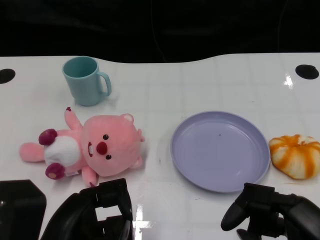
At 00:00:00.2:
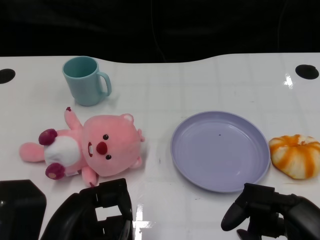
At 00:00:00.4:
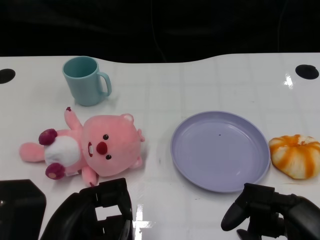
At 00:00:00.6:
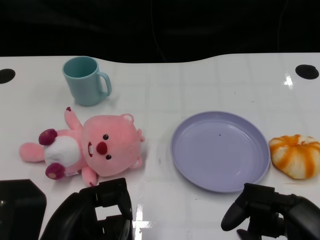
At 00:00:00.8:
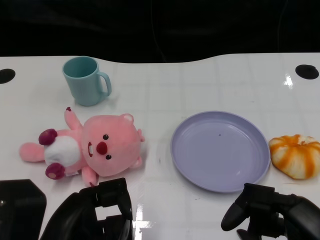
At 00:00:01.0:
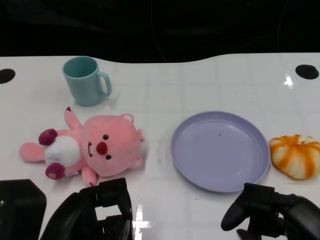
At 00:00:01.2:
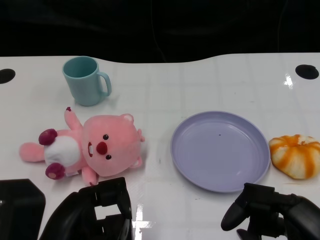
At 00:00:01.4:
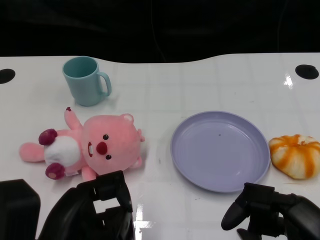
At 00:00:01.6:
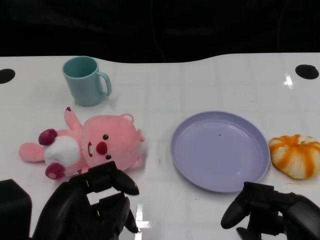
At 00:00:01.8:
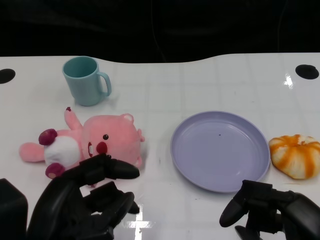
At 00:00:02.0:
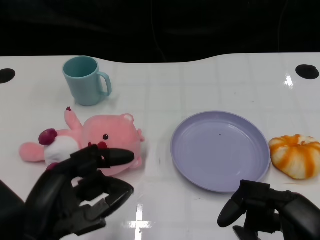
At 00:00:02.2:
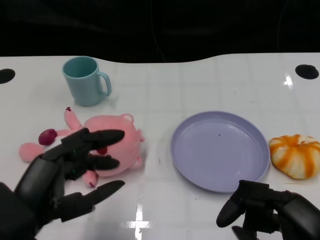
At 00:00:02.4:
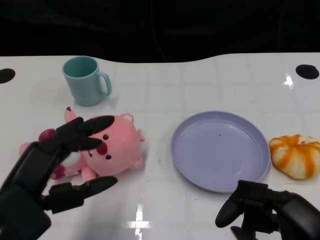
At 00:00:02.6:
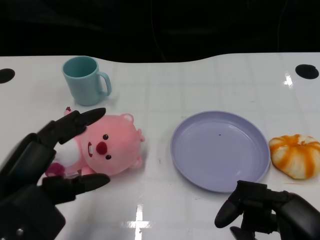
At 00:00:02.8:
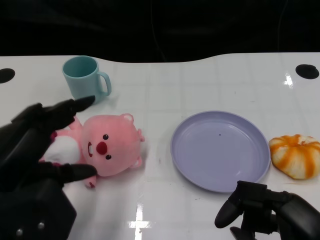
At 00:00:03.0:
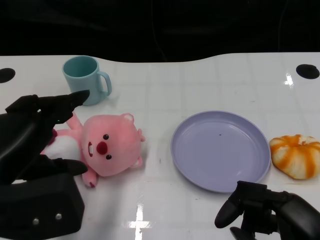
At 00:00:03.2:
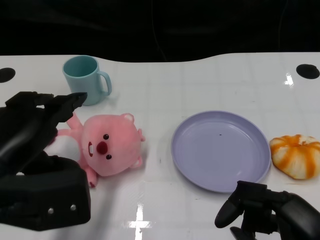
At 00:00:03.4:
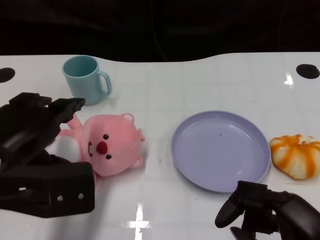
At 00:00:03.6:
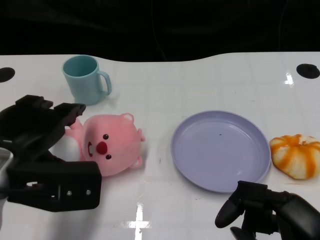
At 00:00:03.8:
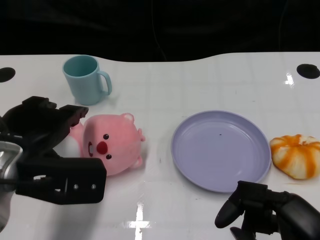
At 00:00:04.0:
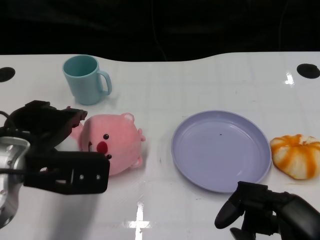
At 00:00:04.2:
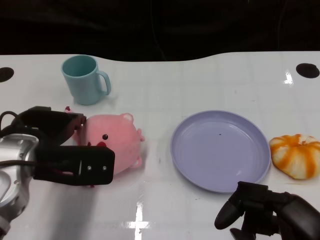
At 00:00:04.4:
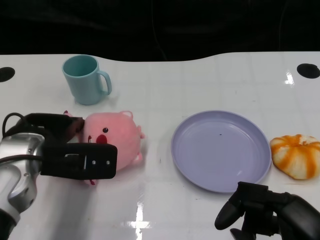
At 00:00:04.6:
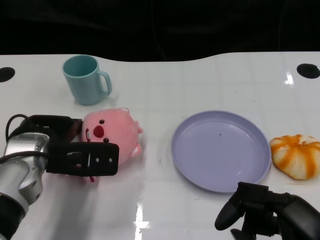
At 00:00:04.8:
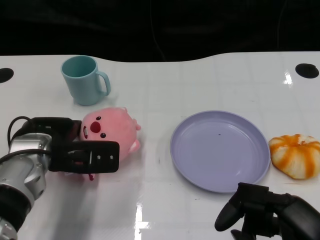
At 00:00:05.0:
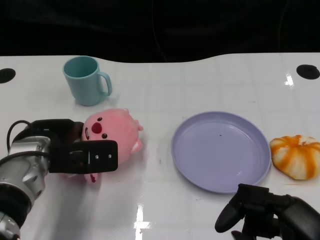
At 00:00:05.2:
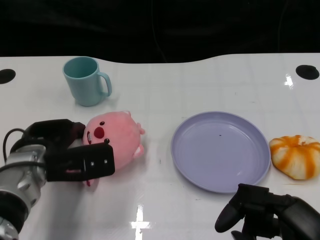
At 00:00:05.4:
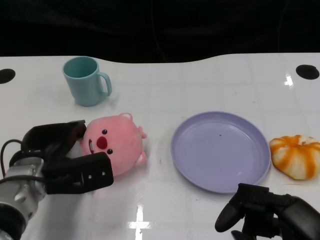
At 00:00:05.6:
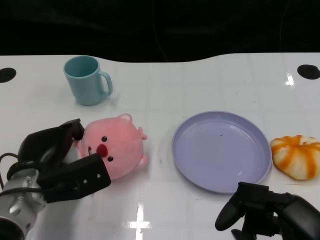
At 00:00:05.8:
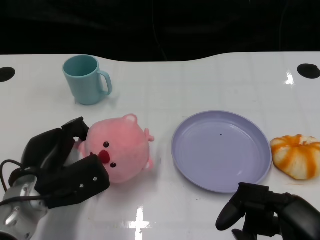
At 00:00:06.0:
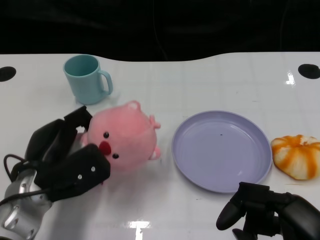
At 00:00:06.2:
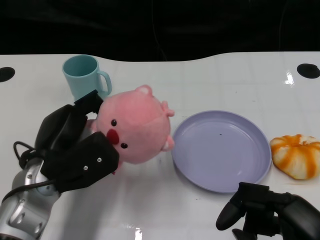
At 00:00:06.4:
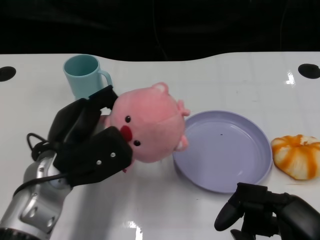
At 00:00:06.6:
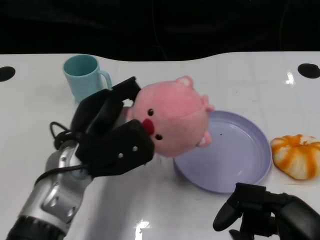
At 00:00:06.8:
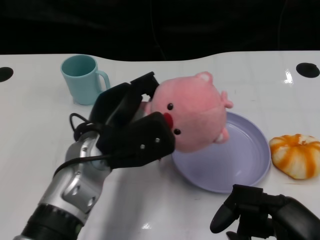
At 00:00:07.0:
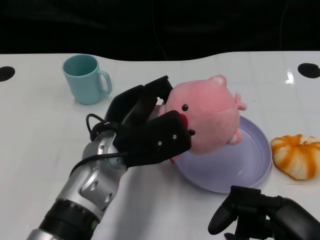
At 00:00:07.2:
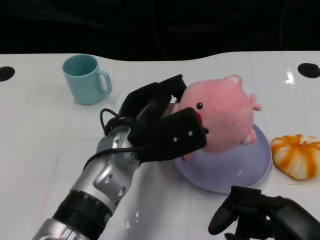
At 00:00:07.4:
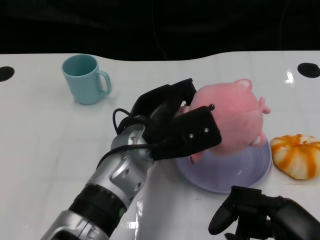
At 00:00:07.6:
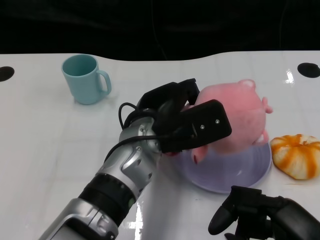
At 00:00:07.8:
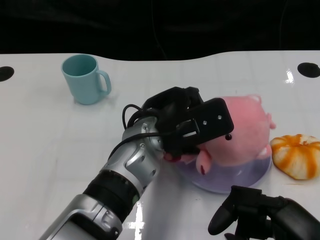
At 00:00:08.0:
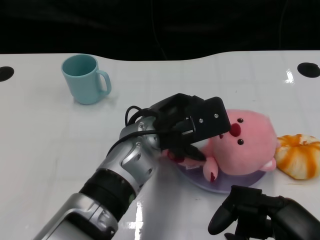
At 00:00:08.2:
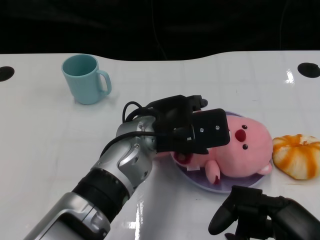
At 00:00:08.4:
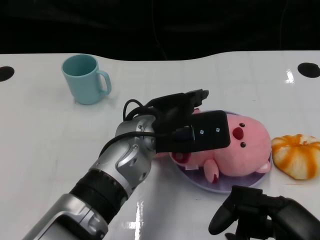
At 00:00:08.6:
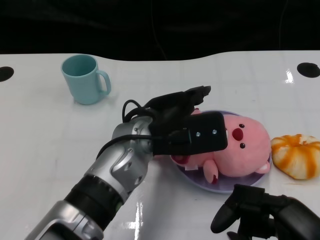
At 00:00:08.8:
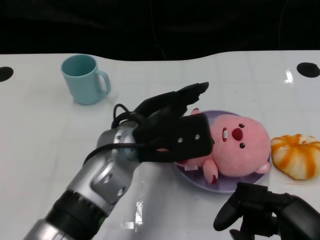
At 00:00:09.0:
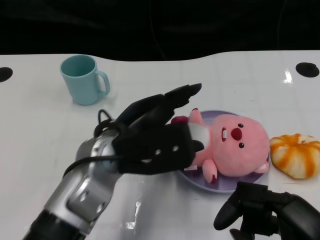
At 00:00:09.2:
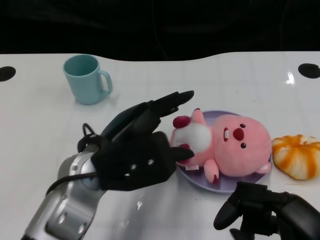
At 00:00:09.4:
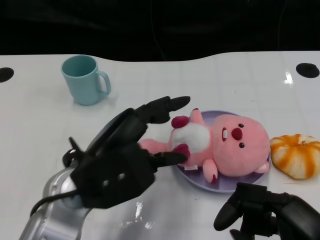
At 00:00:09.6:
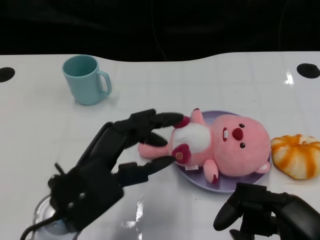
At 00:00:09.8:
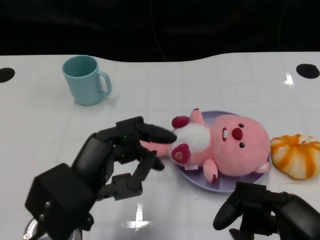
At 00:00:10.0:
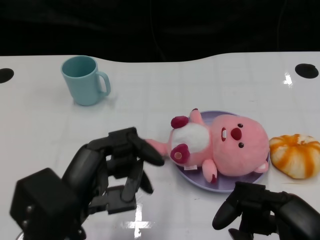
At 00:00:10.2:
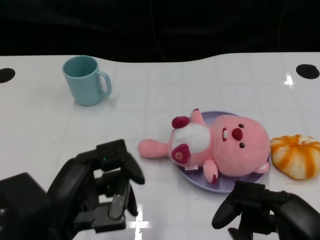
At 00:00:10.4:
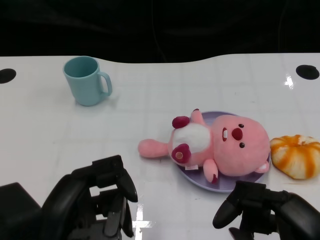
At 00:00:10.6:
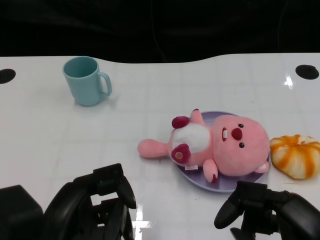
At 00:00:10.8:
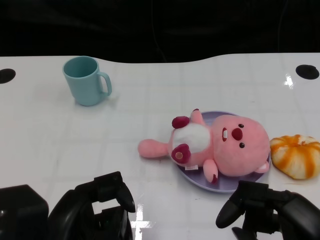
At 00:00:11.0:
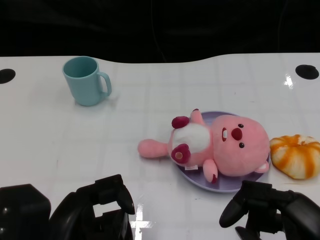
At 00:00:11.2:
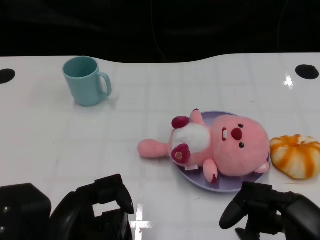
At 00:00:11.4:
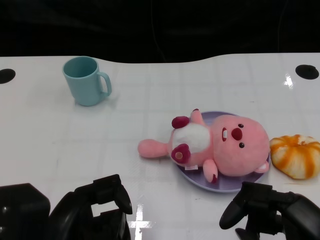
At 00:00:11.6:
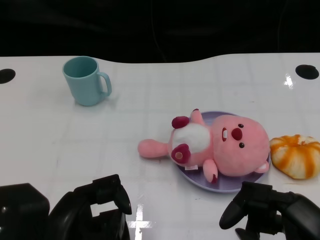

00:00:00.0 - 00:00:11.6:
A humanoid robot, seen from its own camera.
Task of the whole recording: Pick up the doll on one side of the plate and place it into the plate.
Step, 00:00:01.2 - 00:00:05.8: Grasp the pink doll with the left gripper.
Step, 00:00:06.0 - 00:00:08.6: Place the pink doll into the plate with the left gripper.
00:00:01.4 - 00:00:02.8: The left hand heads upward, covering roughly 5 cm.
00:00:02.8 - 00:00:04.4: The left hand heads forward, covering about 10 cm.
00:00:04.4 - 00:00:05.8: The left hand travels downward by approximately 10 cm.
00:00:05.8 - 00:00:07.2: The left hand moves to the right and upward, some 15 cm.
00:00:08.8 - 00:00:10.2: The left hand heads backward and to the left, covering some 15 cm.
00:00:10.2 - 00:00:11.6: The hands make only small movements.

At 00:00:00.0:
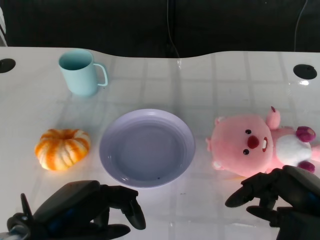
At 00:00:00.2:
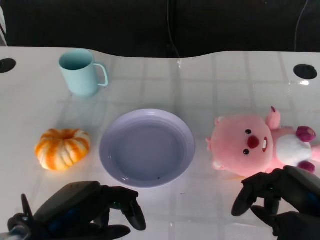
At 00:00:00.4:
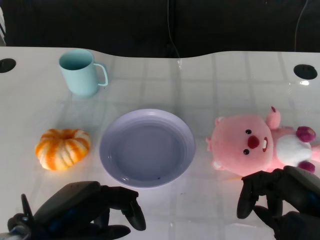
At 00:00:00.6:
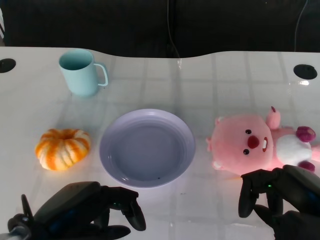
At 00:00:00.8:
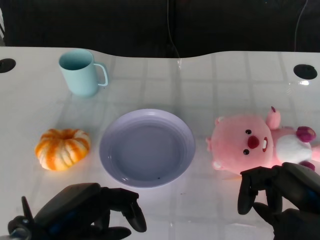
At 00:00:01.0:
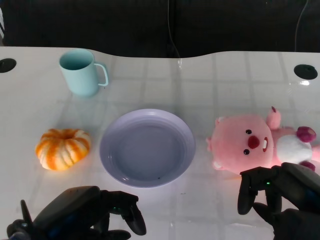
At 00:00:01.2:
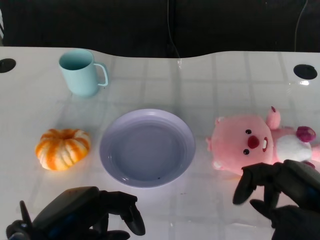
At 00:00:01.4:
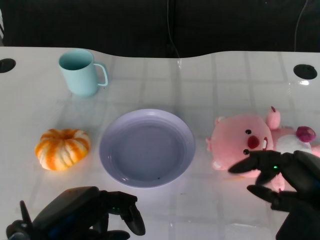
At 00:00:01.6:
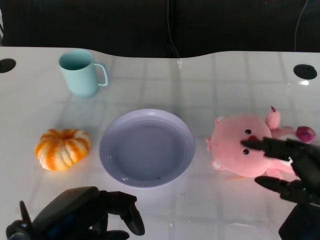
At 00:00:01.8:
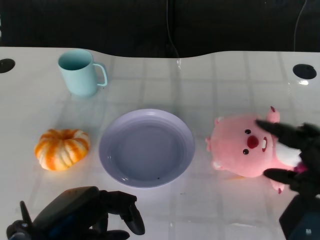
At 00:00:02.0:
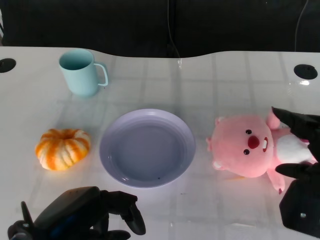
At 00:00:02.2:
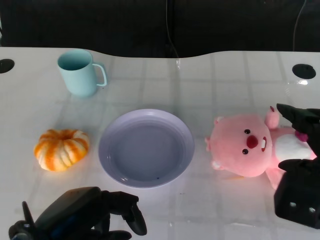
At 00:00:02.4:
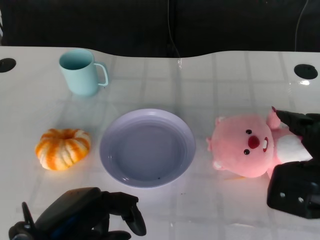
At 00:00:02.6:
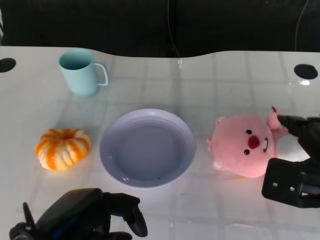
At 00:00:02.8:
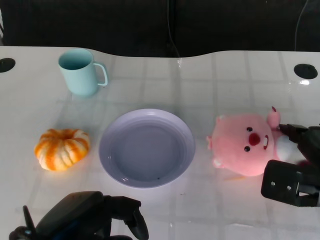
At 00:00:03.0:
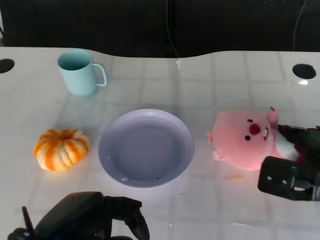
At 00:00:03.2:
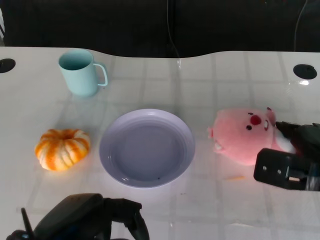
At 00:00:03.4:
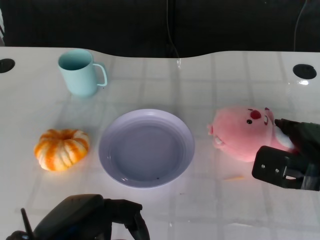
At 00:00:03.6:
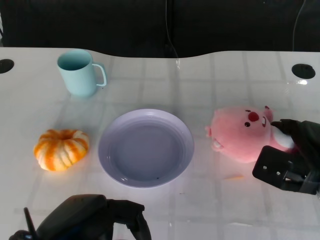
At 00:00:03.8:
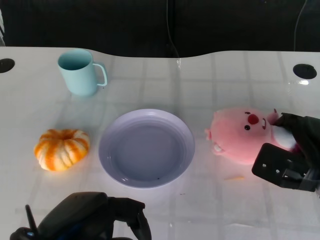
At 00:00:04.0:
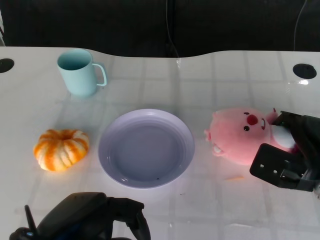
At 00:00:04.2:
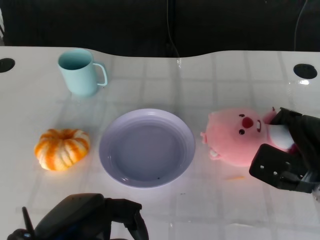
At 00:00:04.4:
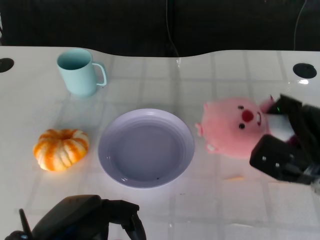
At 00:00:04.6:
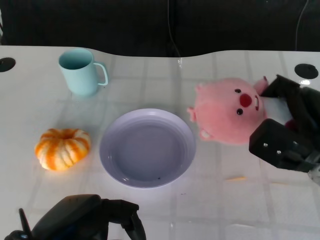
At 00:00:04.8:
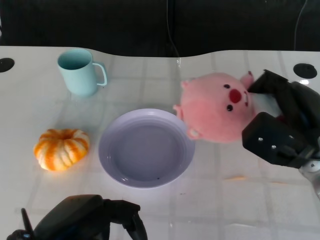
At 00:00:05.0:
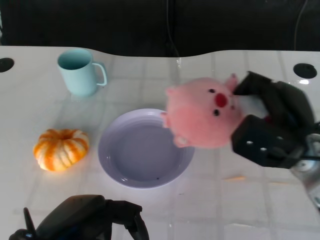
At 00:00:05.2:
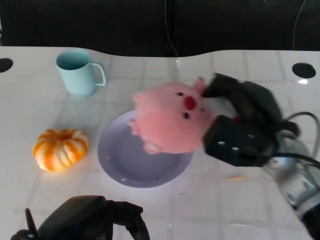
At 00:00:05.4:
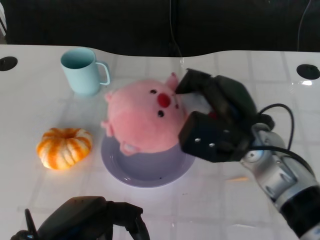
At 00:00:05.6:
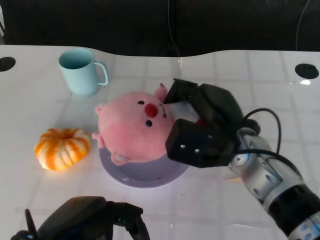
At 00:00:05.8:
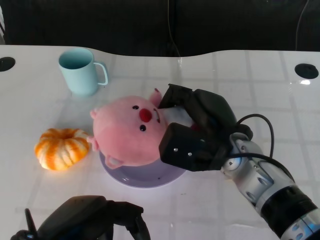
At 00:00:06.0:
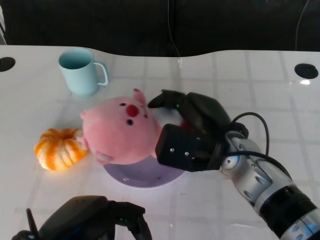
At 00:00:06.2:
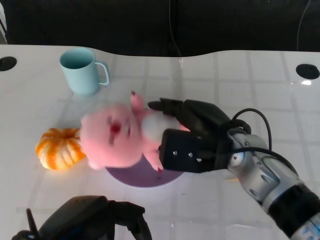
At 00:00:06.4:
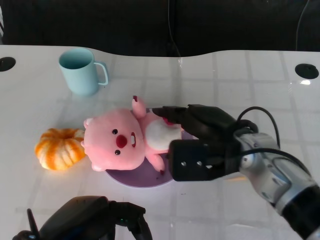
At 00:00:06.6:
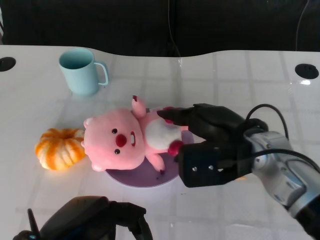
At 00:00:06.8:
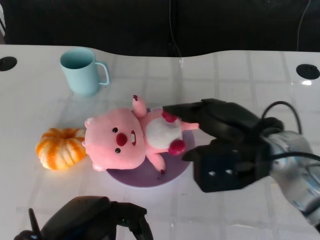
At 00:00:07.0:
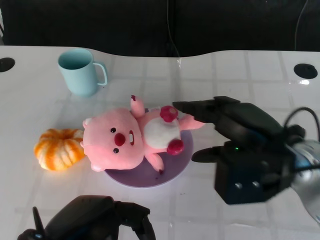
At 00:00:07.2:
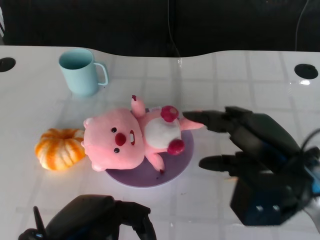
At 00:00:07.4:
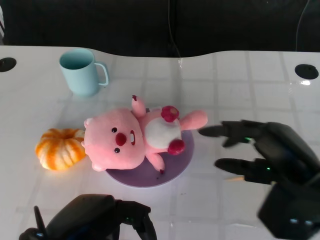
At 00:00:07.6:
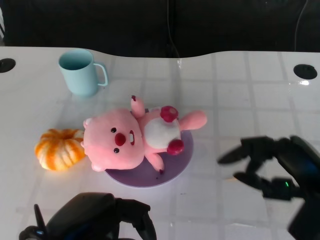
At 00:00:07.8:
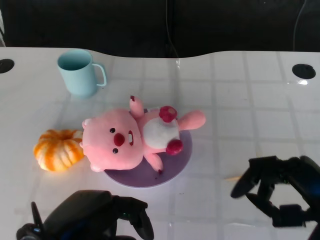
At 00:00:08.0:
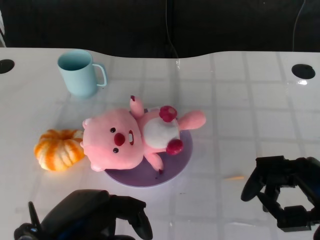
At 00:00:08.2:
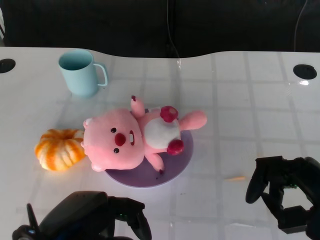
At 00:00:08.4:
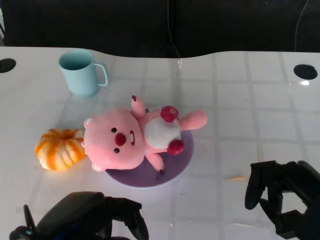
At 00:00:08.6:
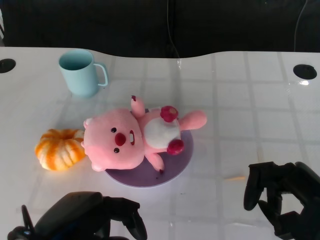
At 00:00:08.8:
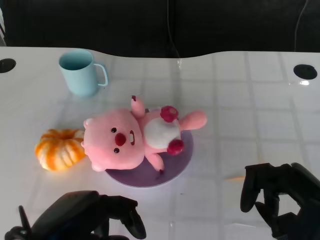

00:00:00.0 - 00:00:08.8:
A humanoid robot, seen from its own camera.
Task of the whole recording: Pick up the doll on the other side of the plate and place it into the plate.
Step, 00:00:01.2 - 00:00:04.8: Grasp the pink doll with the right gripper.
Step, 00:00:05.0 - 00:00:07.0: Place the pink doll into the plate with the right gripper.
00:00:01.4 - 00:00:03.0: The right hand travels forward by roughly 10 cm.
00:00:04.4 - 00:00:05.8: The right hand travels to the left by approximately 15 cm.
00:00:05.8 - 00:00:07.4: The right hand heads to the right and backward, covering about 15 cm.
00:00:07.4 - 00:00:08.8: The right hand changes place by roughly 5 cm.
